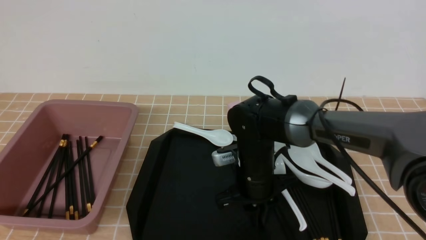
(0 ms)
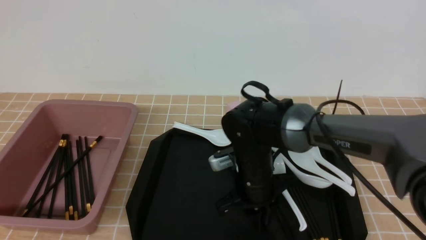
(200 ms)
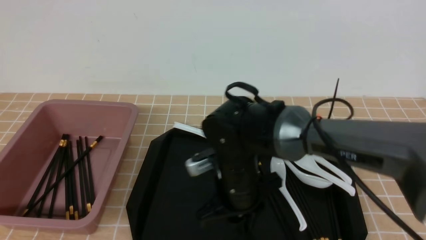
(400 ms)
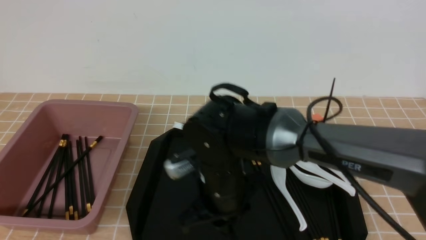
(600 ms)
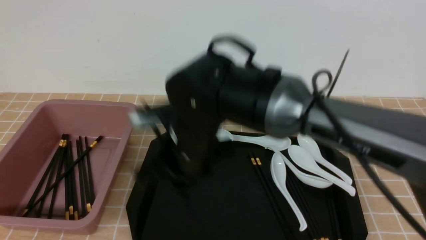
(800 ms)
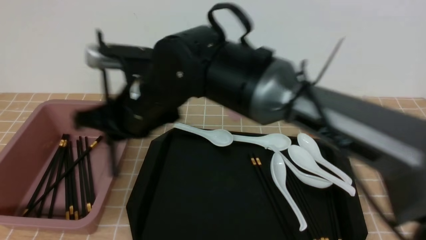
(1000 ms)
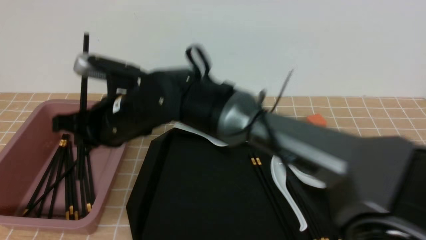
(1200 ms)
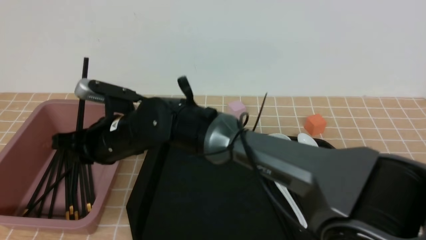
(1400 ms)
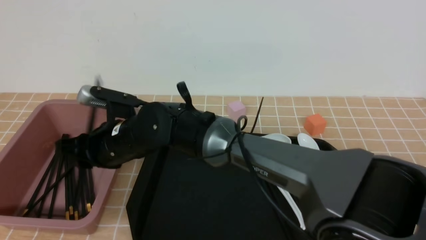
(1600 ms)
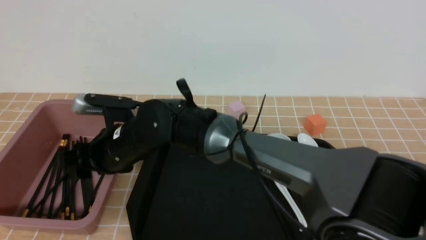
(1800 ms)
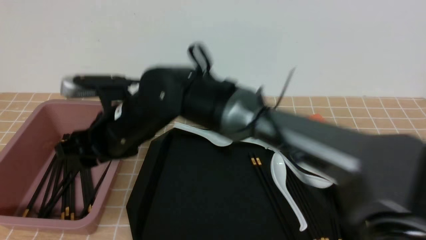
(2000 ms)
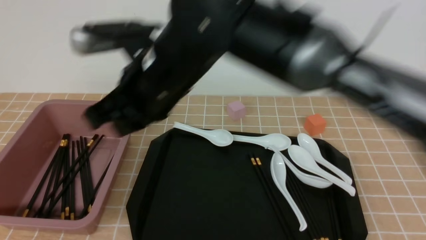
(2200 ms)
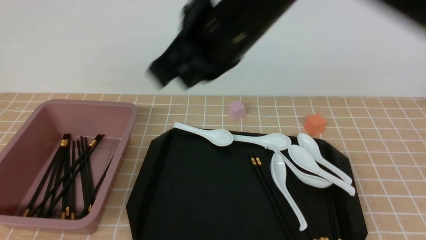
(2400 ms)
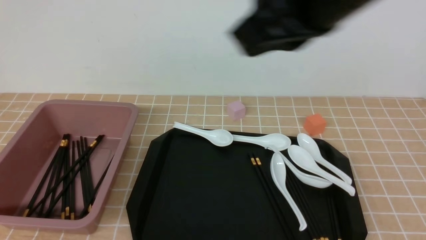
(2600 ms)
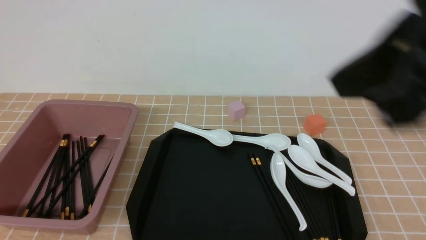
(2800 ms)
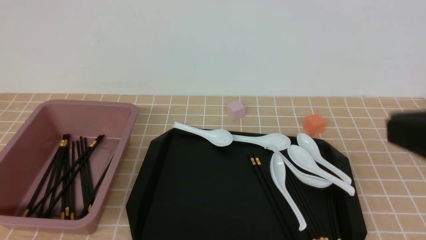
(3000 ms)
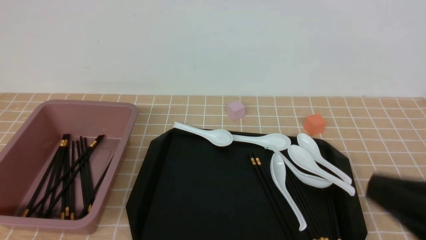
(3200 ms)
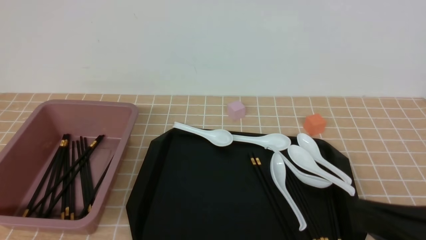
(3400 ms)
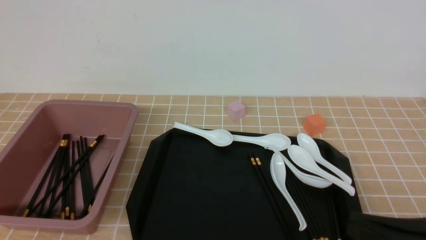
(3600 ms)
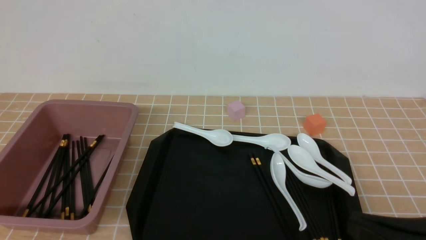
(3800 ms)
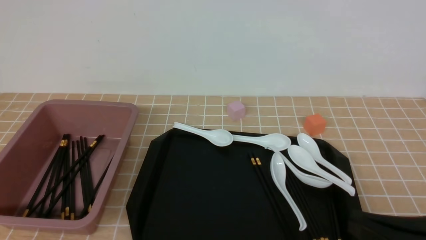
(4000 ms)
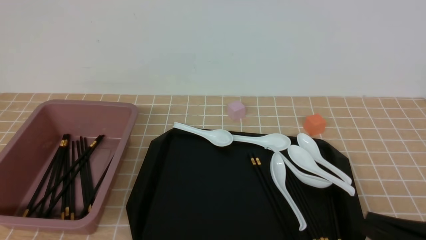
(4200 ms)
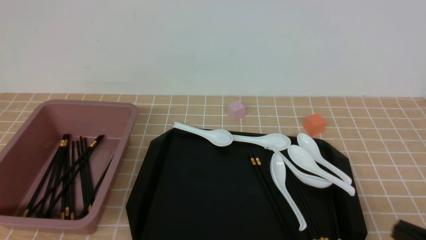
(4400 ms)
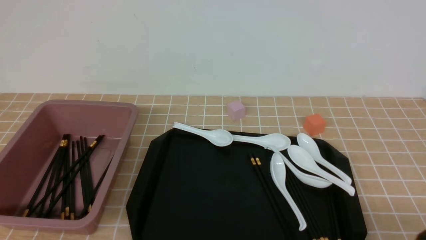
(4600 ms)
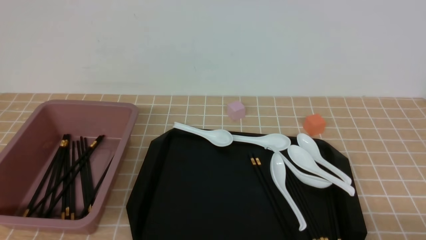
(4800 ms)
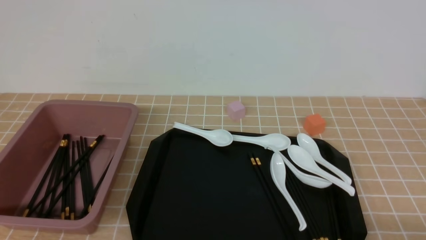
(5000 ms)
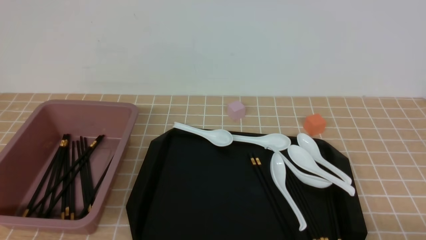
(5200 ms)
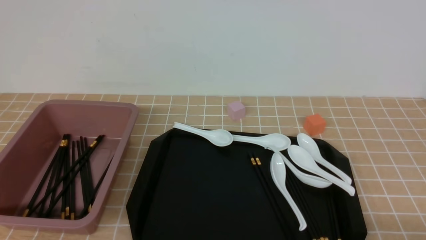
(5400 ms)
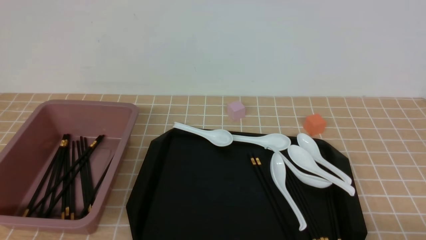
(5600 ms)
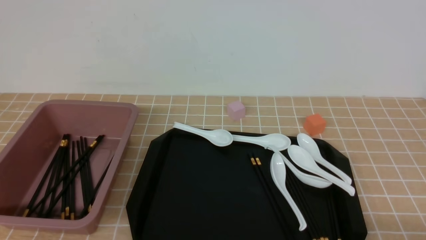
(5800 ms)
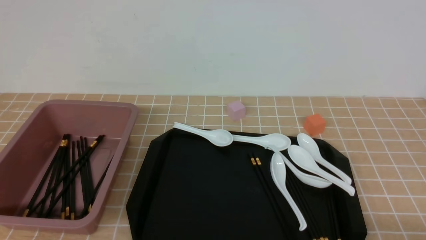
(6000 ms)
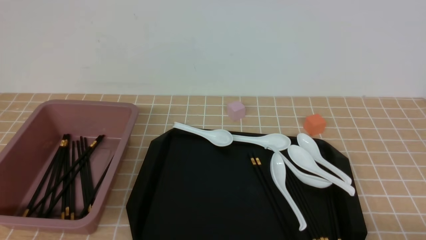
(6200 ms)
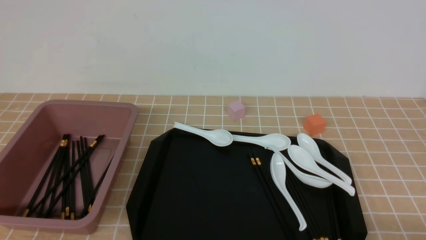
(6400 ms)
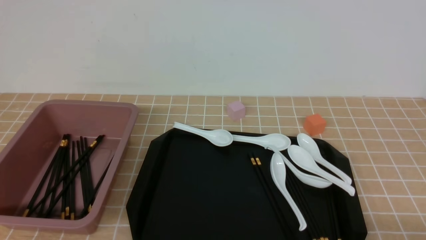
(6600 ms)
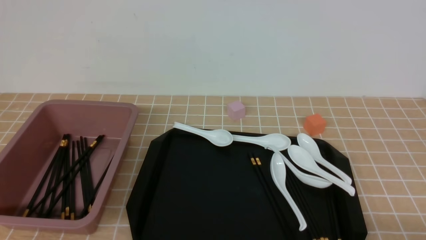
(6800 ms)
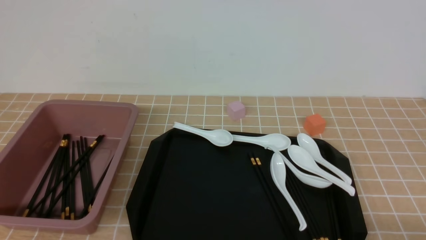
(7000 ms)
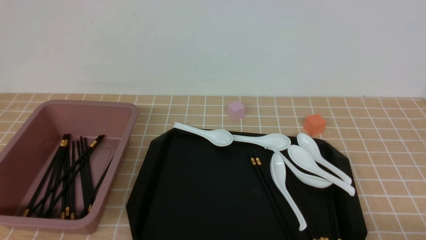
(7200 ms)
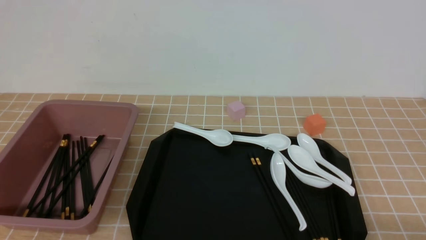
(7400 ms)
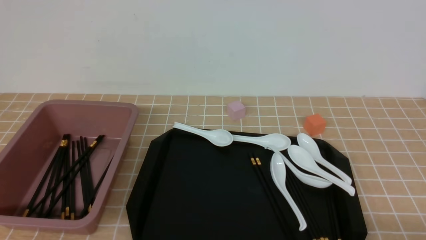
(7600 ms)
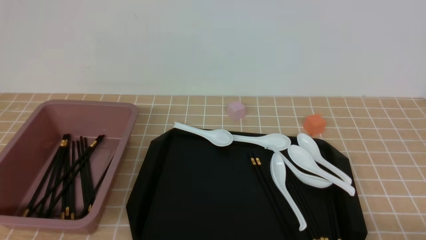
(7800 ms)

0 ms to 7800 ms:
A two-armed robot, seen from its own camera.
Step, 600 ms to 2000 ms: use the right arm to put the chopsticks into the lunch box.
0 ms to 1600 ms: The right gripper heads to the left, covering approximately 20 cm, and opens up.
1600 ms to 3200 ms: The right gripper shifts about 40 cm to the right and backward, and closes up.
3200 ms to 4600 ms: The right gripper moves downward and to the right, some 15 cm.
6200 ms to 7800 ms: Both grippers stay about where they are.
